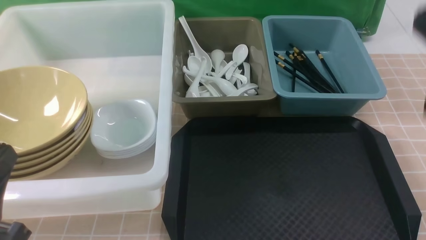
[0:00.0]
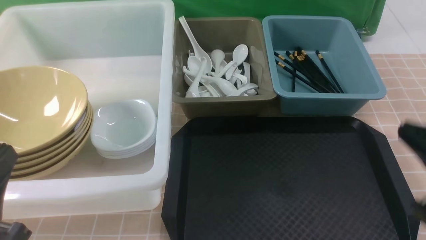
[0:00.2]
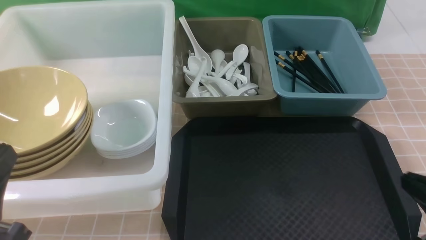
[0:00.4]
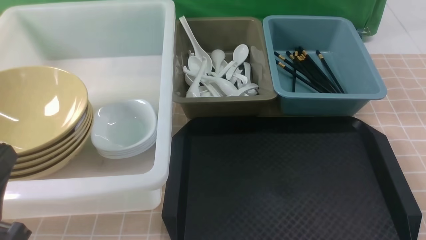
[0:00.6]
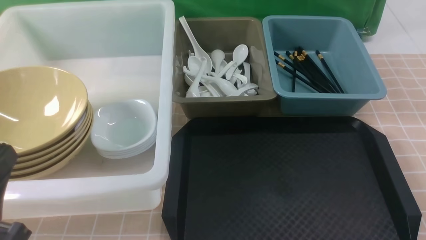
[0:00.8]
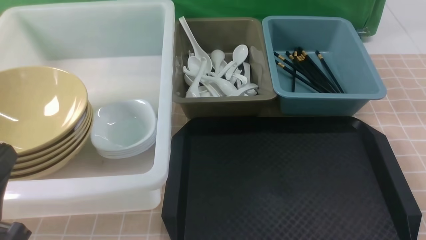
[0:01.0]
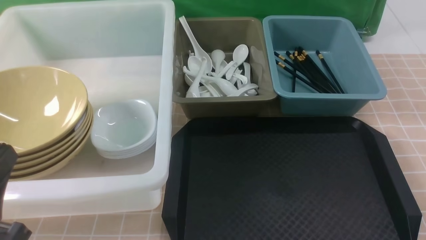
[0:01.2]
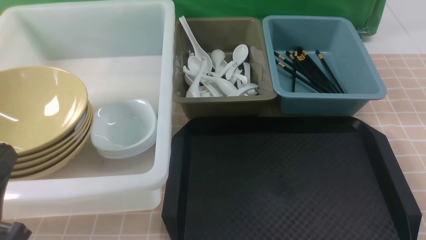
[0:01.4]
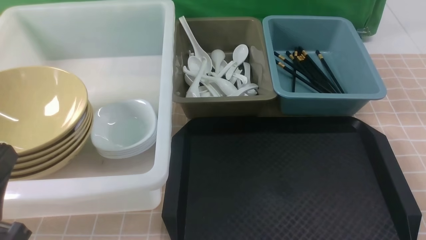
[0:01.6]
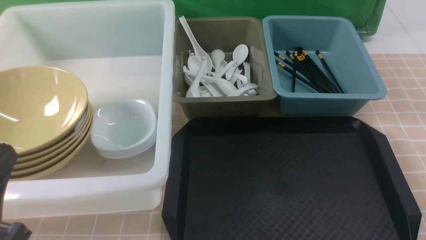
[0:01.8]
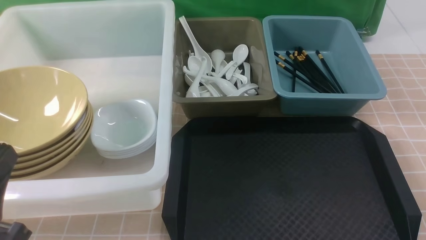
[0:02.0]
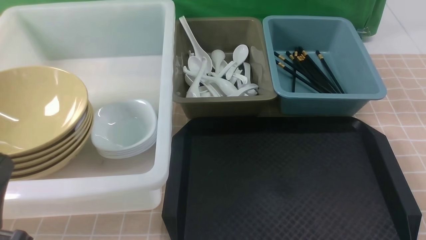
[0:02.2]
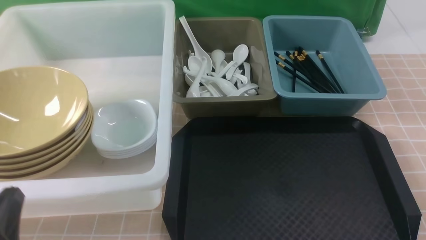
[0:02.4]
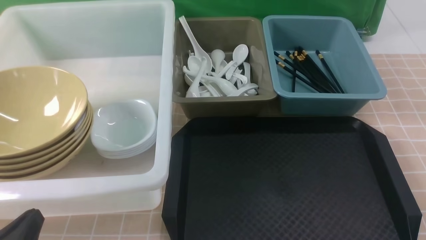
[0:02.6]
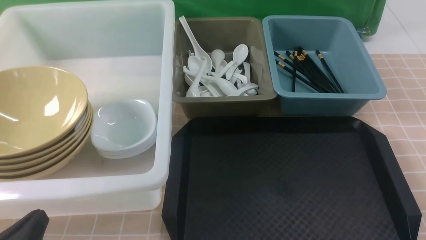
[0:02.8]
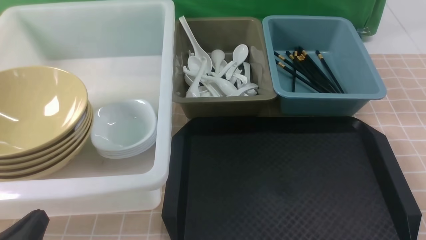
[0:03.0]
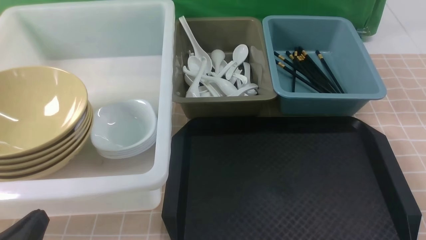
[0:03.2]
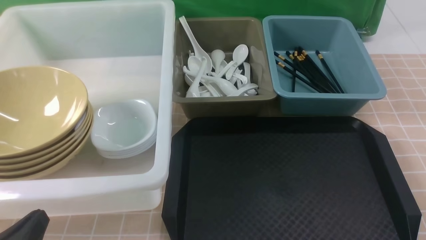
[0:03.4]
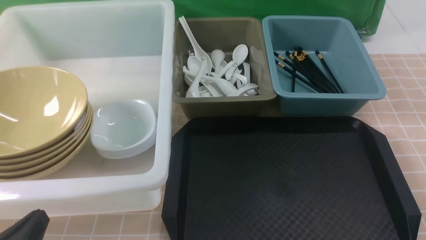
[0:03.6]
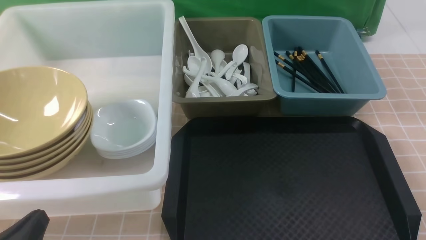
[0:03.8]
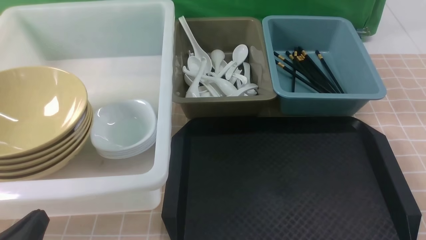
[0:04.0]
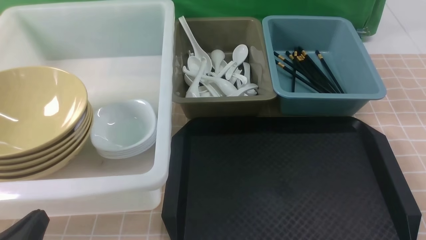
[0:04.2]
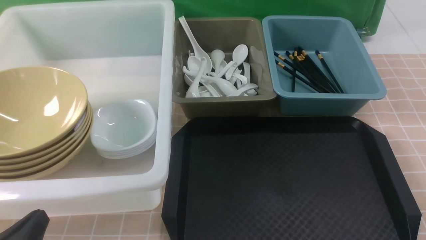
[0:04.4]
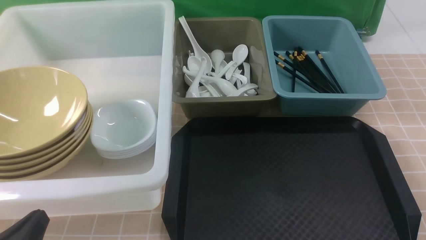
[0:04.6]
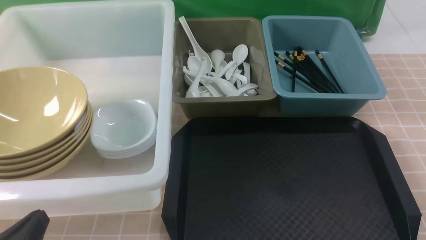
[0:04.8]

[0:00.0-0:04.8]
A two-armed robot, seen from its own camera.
Task of the whole recording: on brown table put chopsticks spoon bowls plates into blue grey white boxes.
0:00.0 to 0:01.6: The right gripper travels downward and backward by roughly 20 cm.
0:01.6 to 0:03.2: The left gripper goes some 10 cm downward.
0:03.2 to 0:04.8: The two grippers keep their place.
